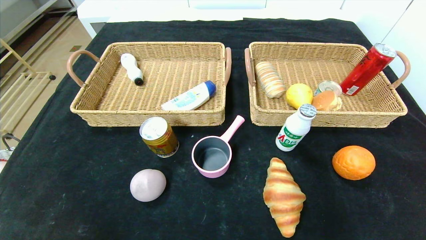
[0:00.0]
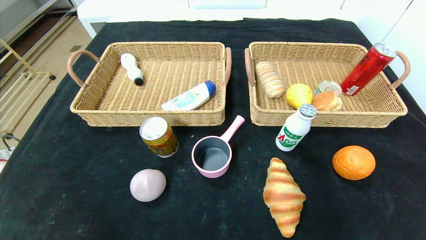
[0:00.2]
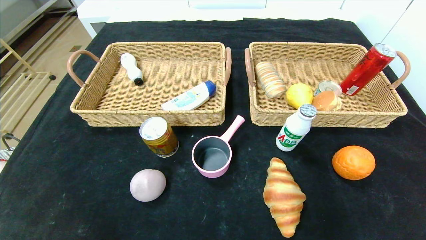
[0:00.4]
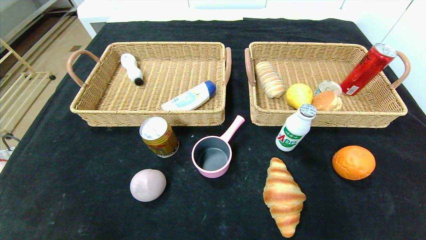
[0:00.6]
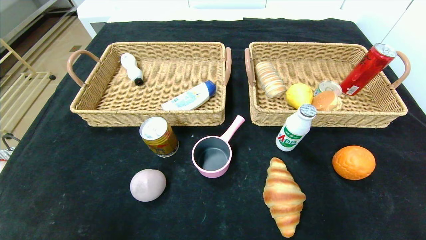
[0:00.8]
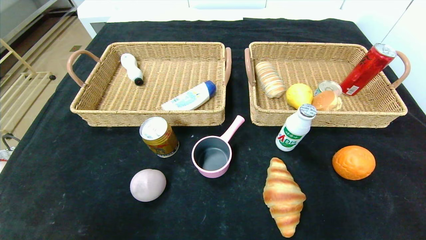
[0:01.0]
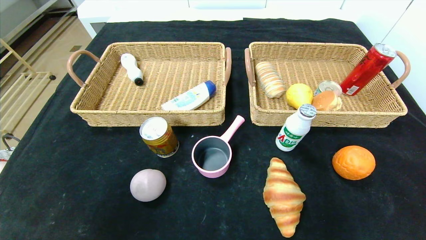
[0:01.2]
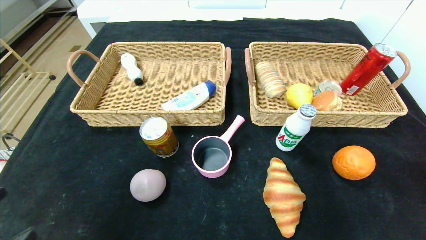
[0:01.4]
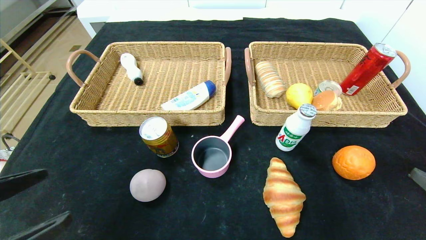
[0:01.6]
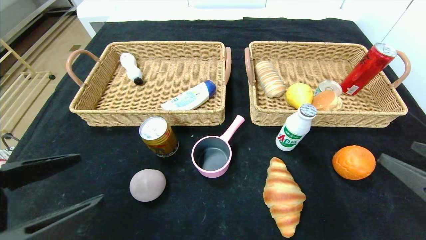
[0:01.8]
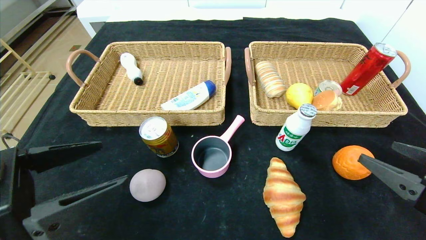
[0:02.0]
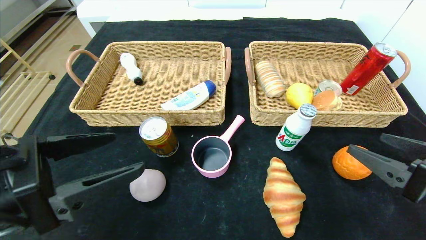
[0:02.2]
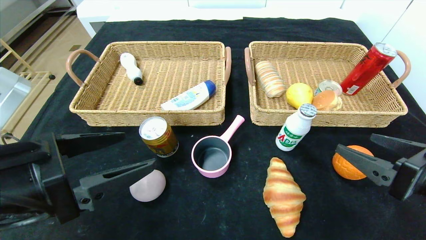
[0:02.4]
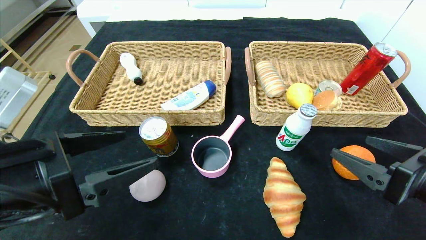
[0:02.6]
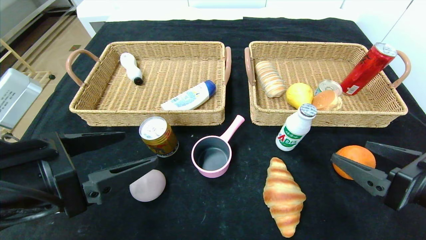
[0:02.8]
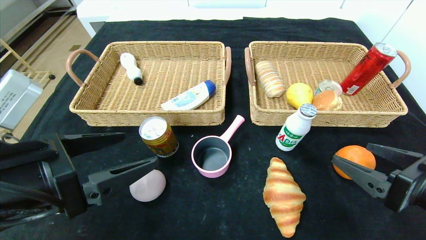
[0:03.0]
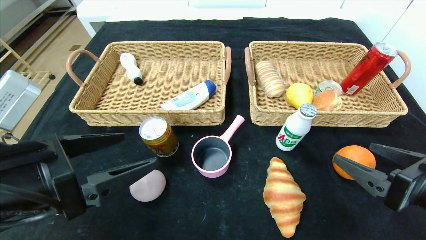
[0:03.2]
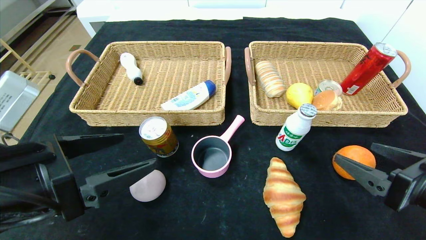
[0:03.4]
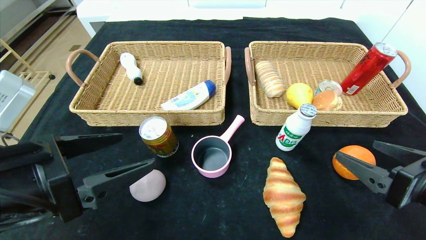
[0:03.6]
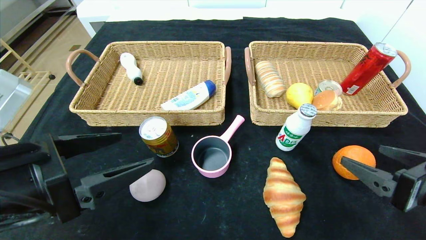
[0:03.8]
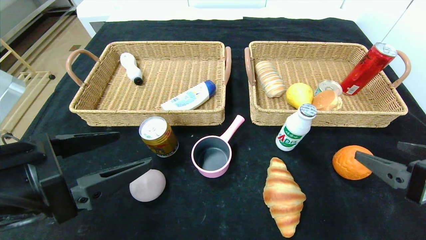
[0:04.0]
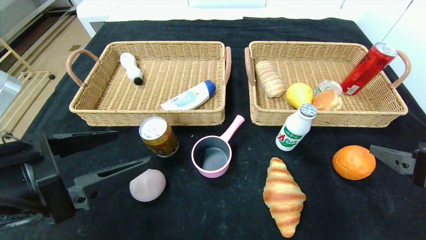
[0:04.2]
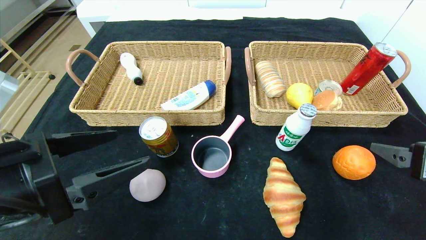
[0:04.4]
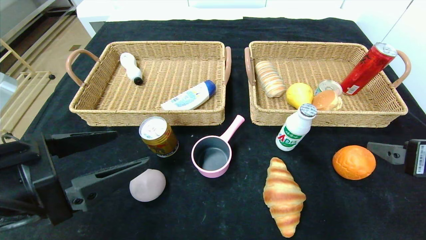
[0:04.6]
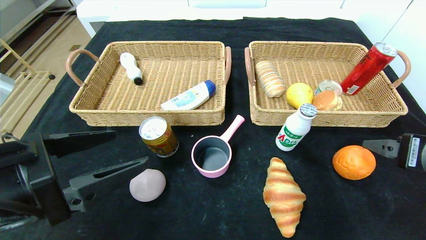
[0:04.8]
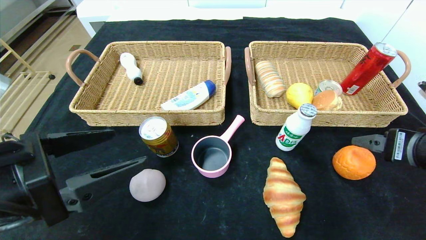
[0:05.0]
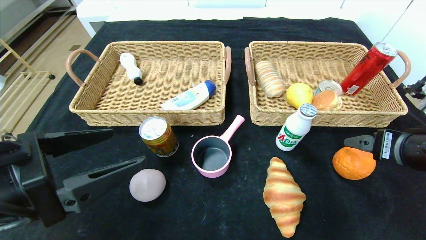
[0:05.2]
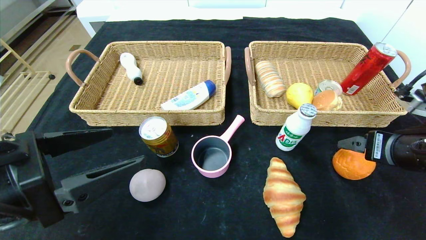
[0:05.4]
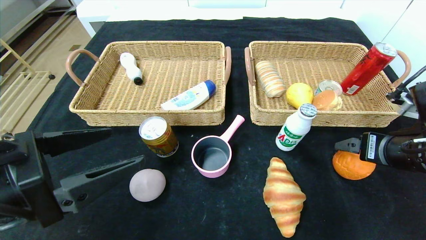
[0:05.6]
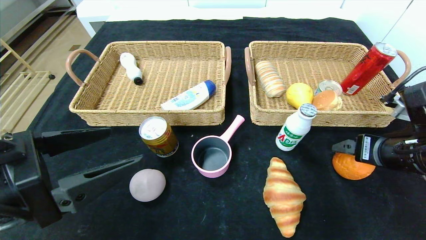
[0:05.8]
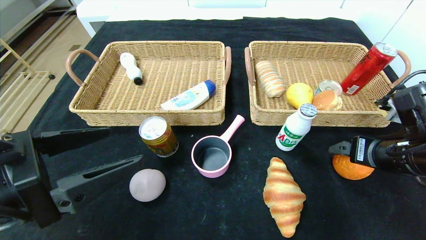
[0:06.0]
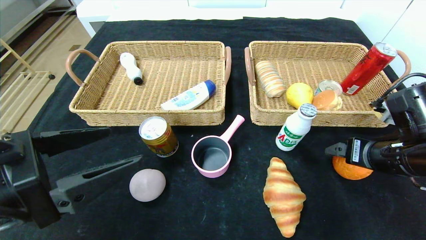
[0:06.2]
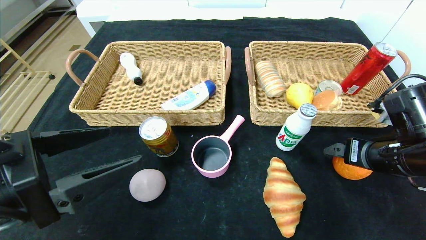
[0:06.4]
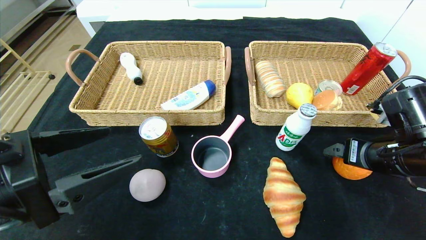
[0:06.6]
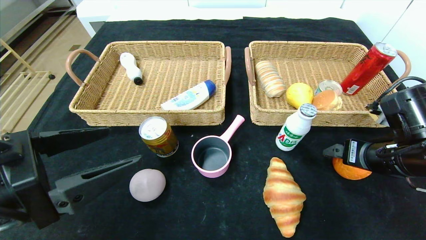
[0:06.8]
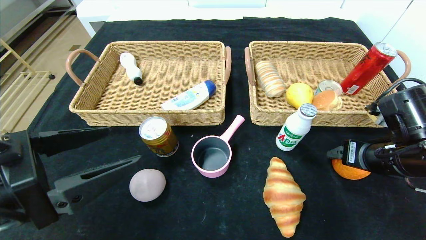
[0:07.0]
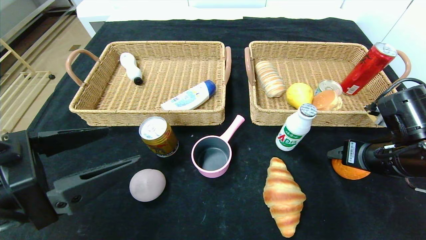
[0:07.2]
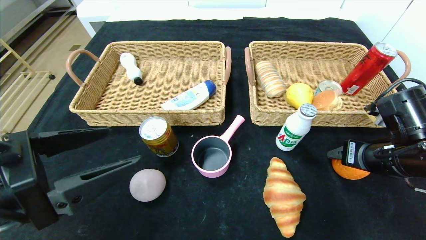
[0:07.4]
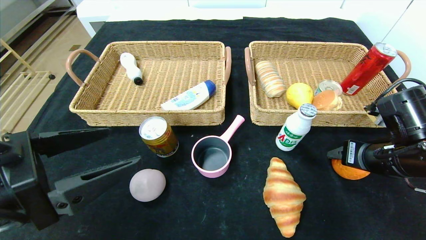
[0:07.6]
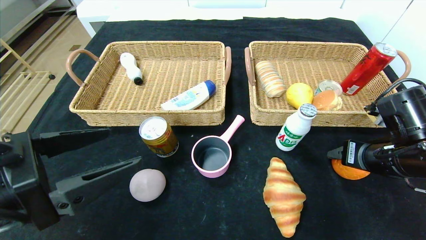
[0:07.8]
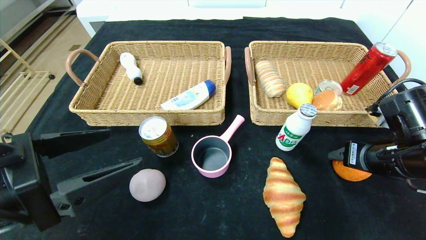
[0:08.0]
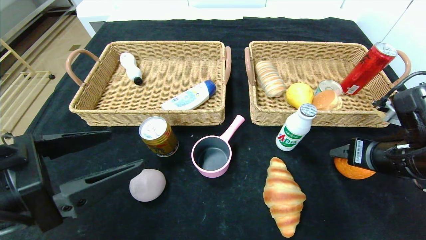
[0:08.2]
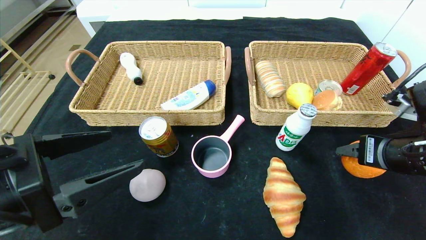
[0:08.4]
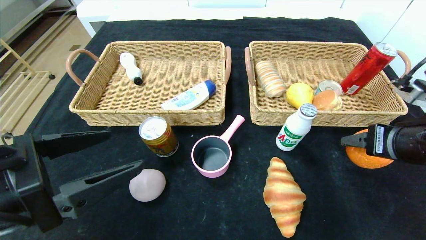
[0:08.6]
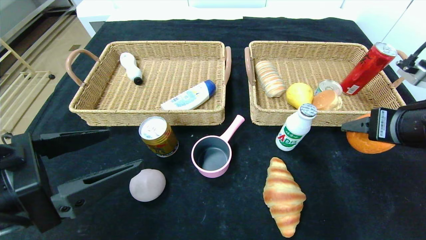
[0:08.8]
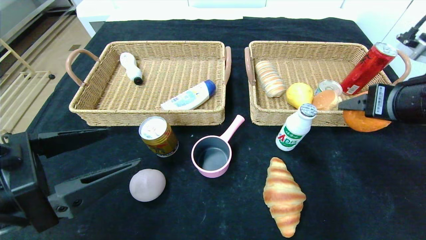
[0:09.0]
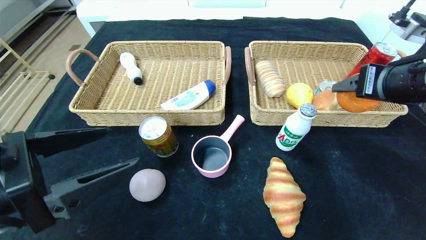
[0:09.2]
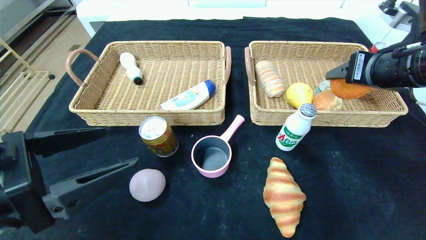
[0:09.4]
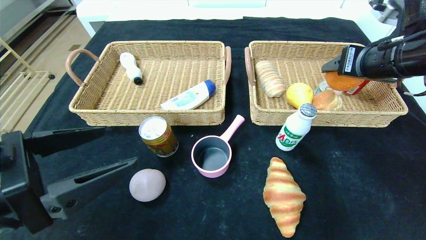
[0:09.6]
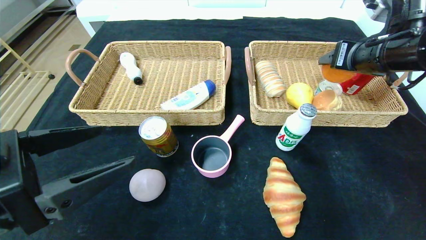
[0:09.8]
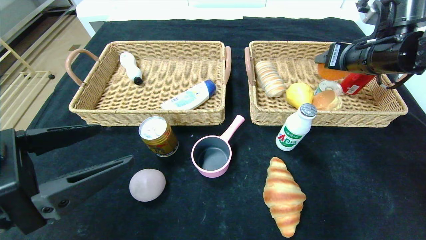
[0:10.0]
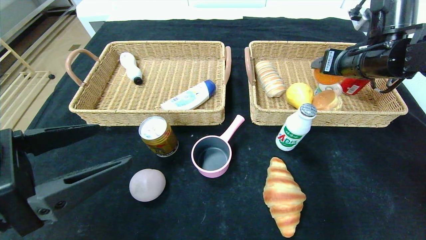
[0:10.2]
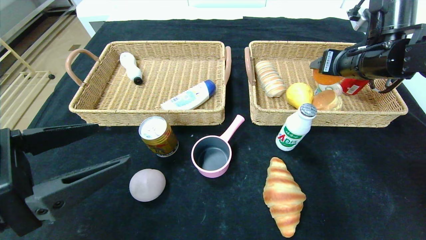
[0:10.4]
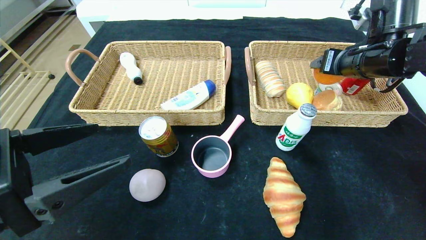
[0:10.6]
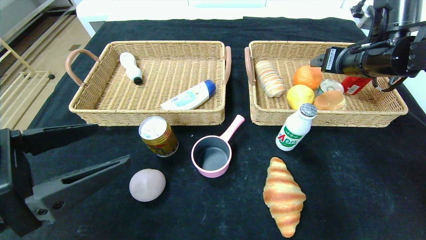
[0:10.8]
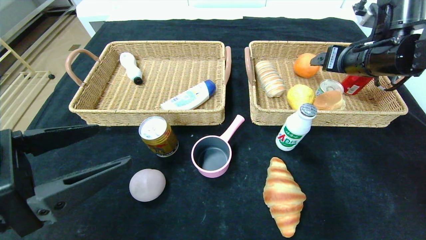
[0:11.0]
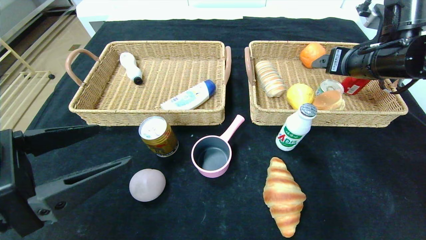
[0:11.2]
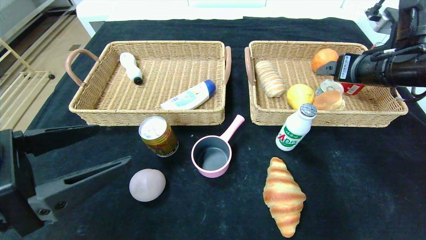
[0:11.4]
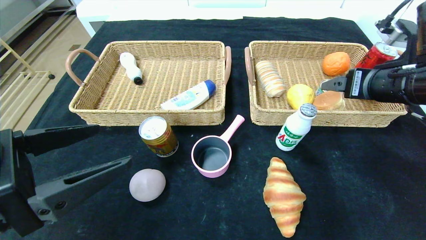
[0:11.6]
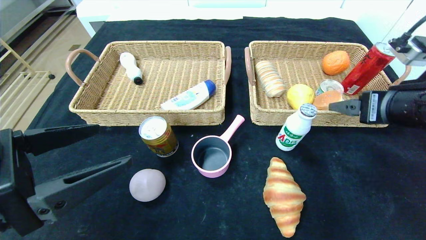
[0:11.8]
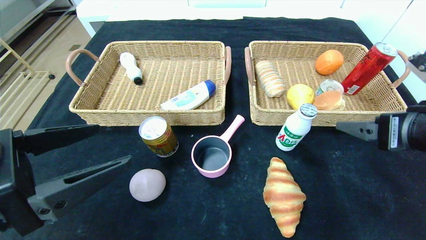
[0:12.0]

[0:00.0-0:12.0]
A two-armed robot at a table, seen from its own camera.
Step, 0:00.0 to 0:11.0: Grasp the orange and put it in the right basket.
0:00.0 to 0:01.6: The grippers both shift upward and forward by some 20 cm.
0:01.6 to 0:03.0: The right gripper travels to the left and forward by about 10 cm; the left gripper goes some 10 cm forward.
0:04.4 to 0:06.0: The right gripper is displaced forward by roughly 10 cm.
0:06.0 to 0:07.6: The grippers stay close to where they were, moving slightly.
0:07.6 to 0:09.0: The right gripper heads upward, covering approximately 10 cm.
0:09.0 to 0:10.4: The right gripper travels forward by approximately 15 cm.
0:10.4 to 0:12.0: The right gripper heads backward, covering some 15 cm.

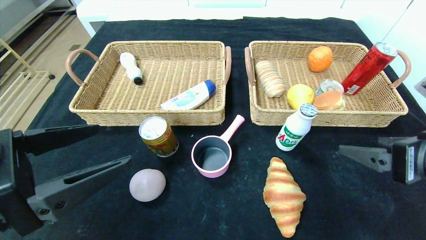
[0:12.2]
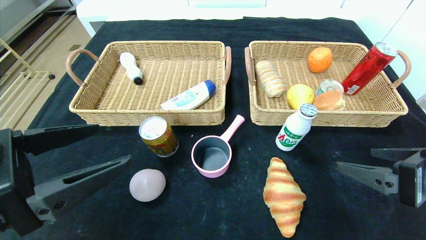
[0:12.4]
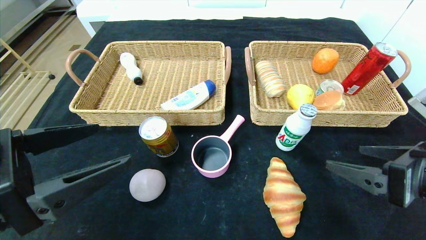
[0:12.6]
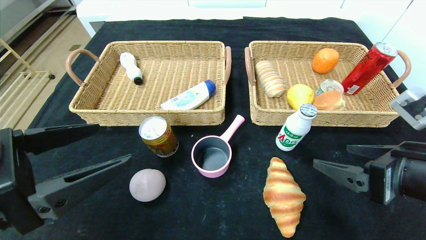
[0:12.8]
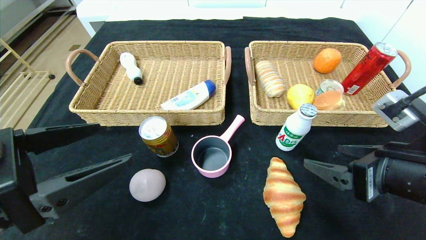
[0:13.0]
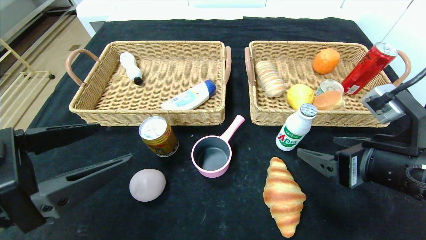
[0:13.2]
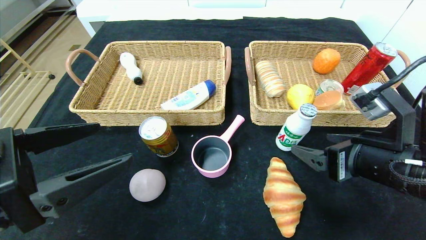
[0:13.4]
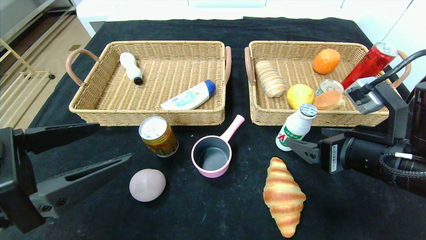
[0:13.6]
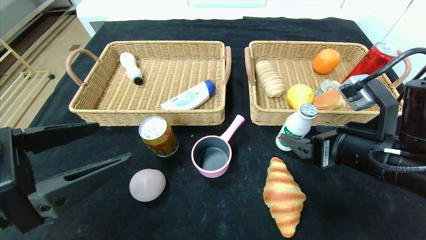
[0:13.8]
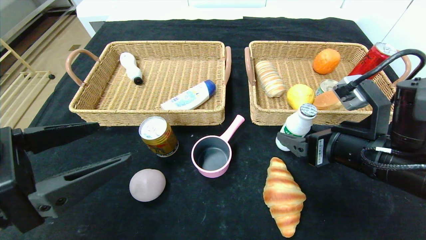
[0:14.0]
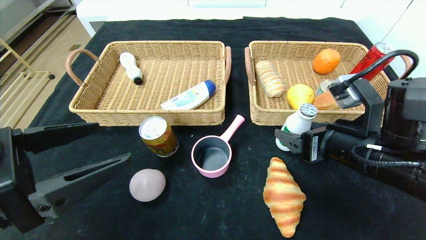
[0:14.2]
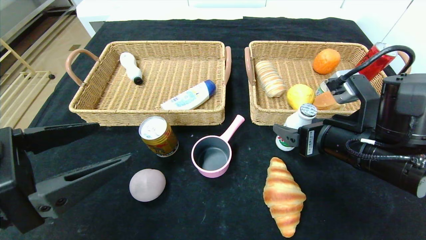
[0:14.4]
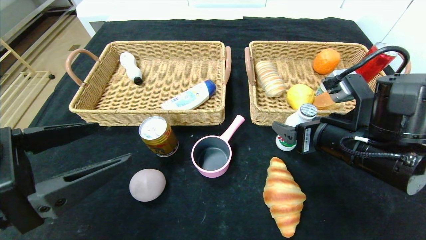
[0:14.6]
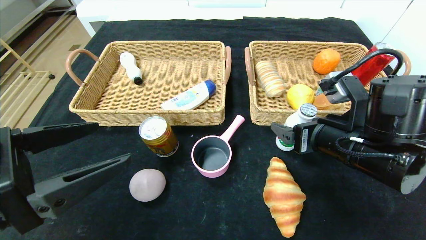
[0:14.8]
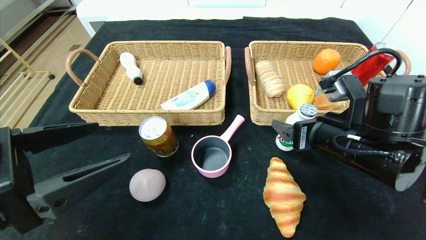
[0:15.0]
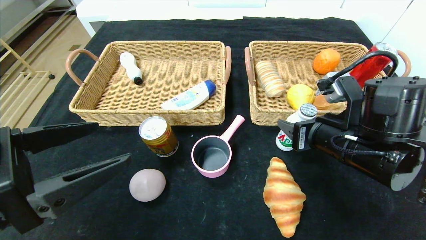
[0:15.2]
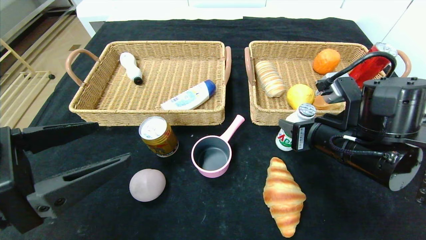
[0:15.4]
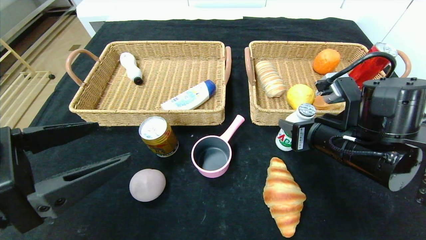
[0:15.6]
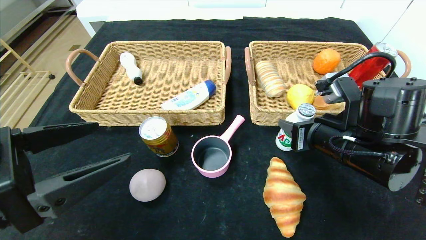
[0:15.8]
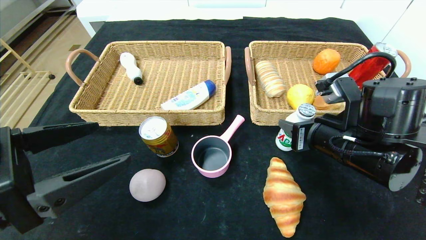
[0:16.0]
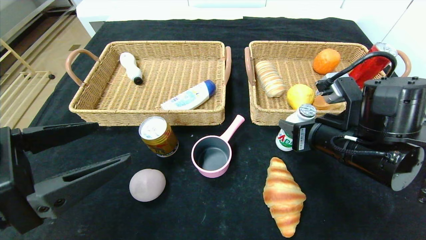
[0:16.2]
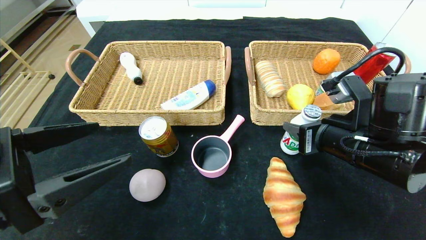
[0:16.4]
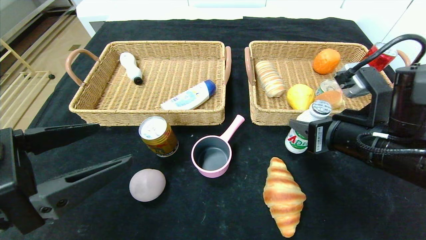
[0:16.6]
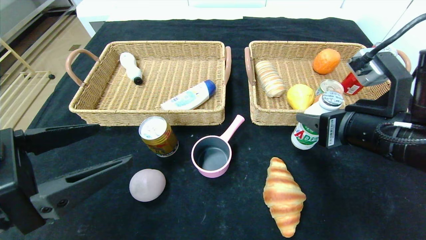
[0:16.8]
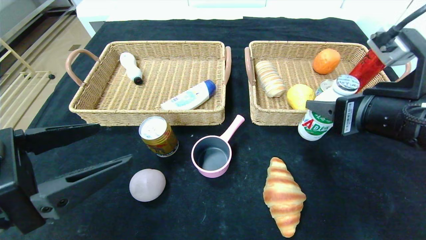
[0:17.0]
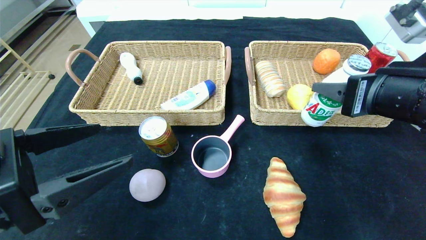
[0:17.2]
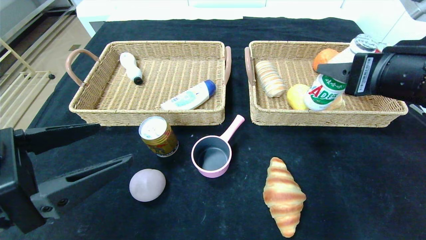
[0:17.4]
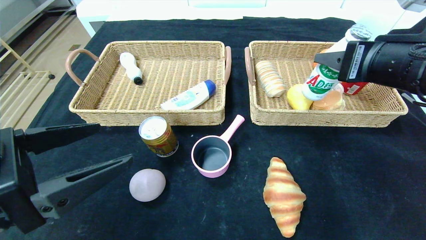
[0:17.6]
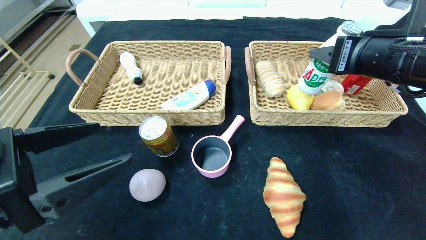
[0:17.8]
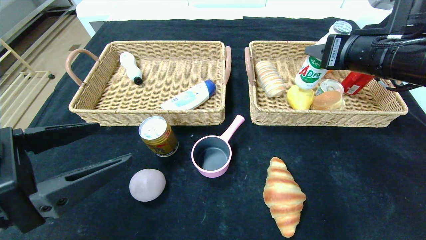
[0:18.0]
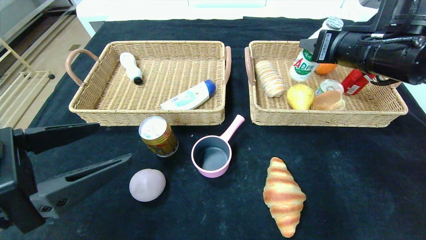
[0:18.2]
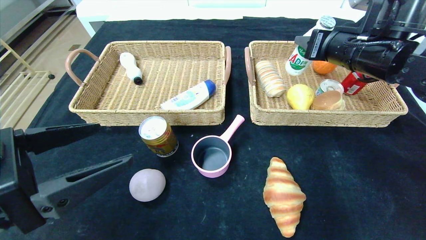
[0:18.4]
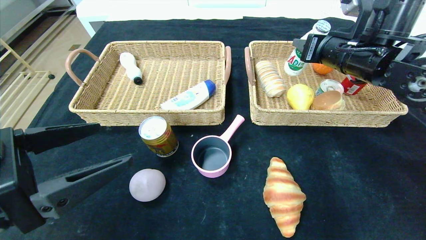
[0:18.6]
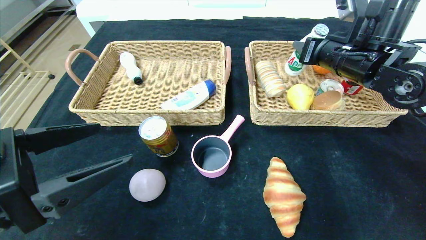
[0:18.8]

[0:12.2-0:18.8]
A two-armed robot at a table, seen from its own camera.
0:12.2 to 0:13.8: The right gripper moves to the left and forward, about 10 cm.
0:13.8 to 0:15.4: The right gripper closes.
0:15.4 to 0:17.2: The right gripper shifts some 10 cm upward.
0:17.2 to 0:18.8: The right gripper travels forward by about 15 cm.
